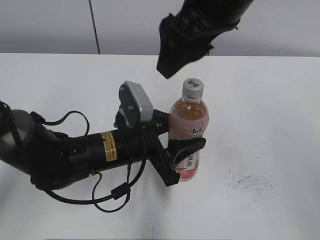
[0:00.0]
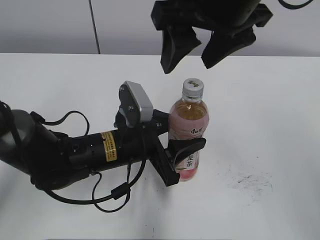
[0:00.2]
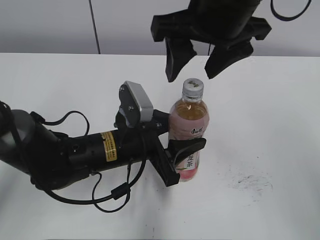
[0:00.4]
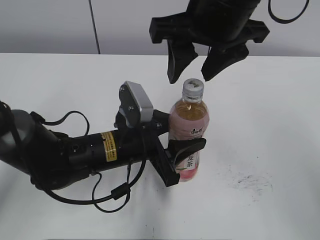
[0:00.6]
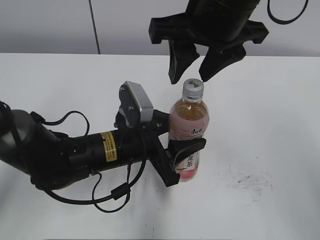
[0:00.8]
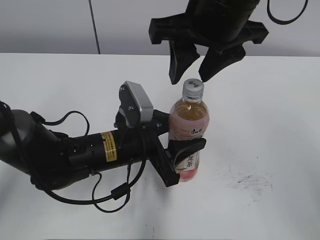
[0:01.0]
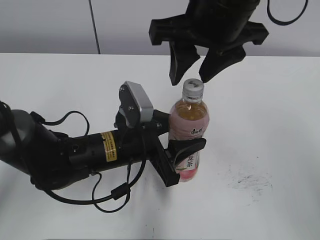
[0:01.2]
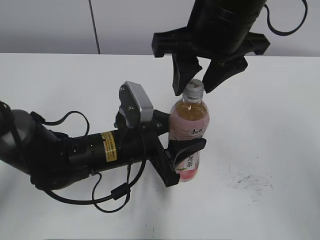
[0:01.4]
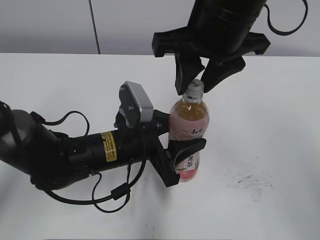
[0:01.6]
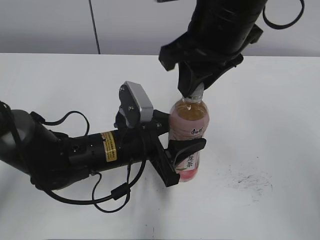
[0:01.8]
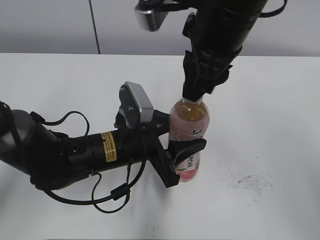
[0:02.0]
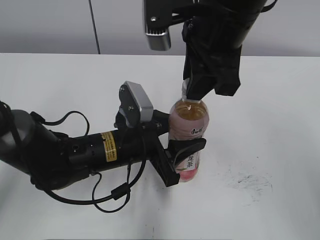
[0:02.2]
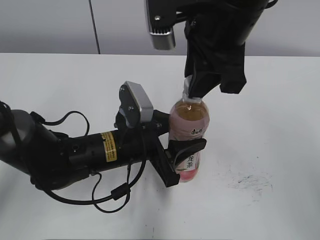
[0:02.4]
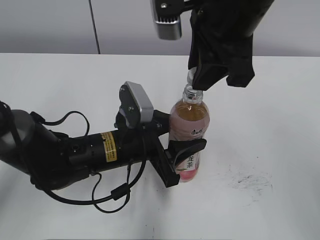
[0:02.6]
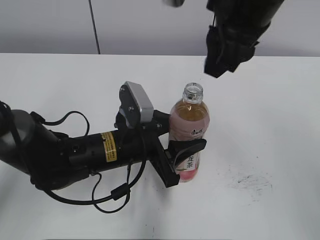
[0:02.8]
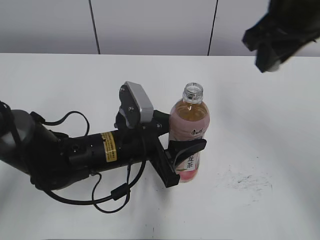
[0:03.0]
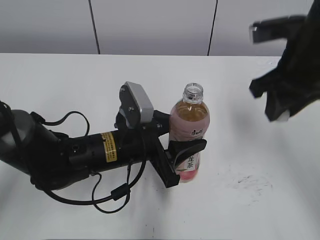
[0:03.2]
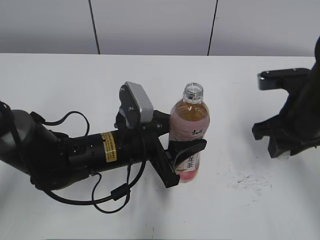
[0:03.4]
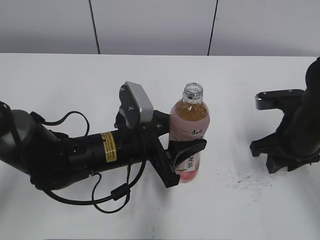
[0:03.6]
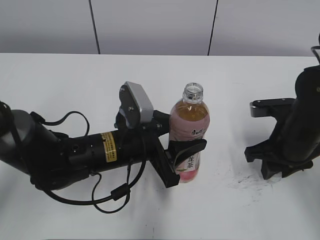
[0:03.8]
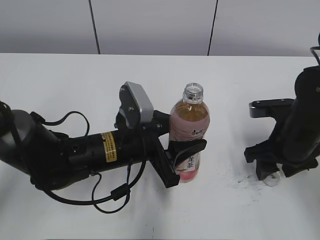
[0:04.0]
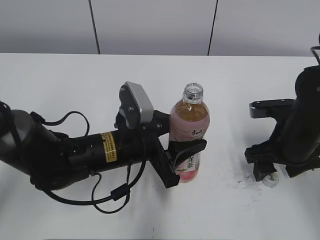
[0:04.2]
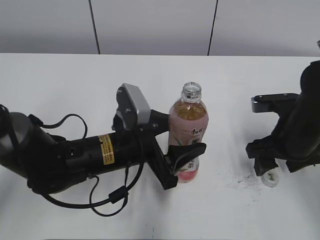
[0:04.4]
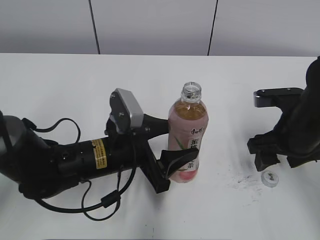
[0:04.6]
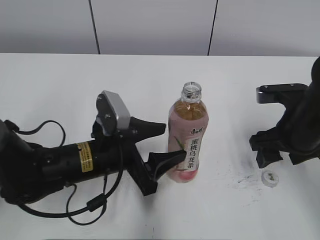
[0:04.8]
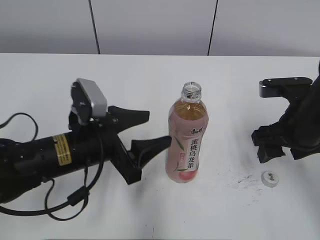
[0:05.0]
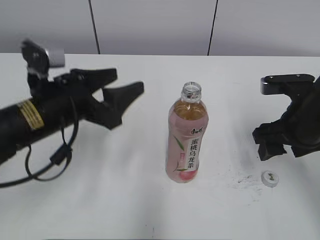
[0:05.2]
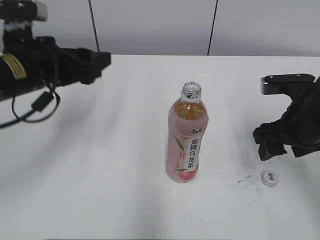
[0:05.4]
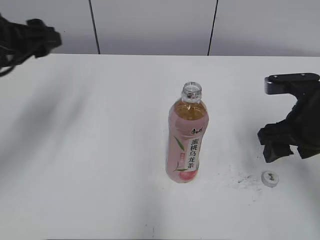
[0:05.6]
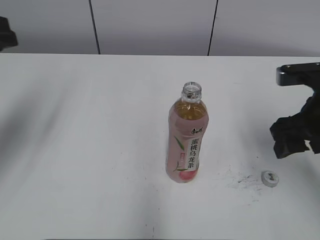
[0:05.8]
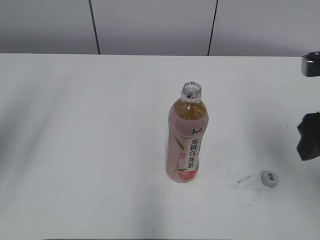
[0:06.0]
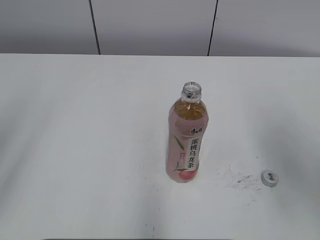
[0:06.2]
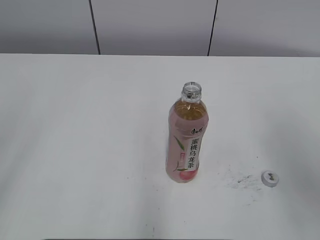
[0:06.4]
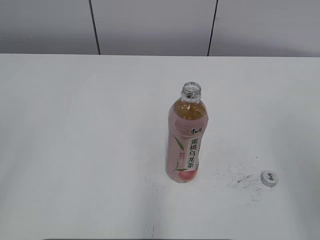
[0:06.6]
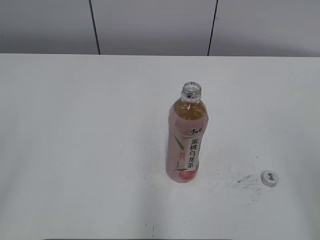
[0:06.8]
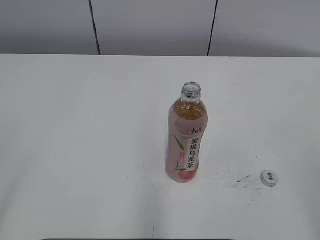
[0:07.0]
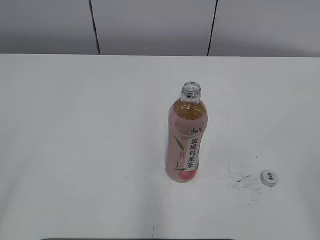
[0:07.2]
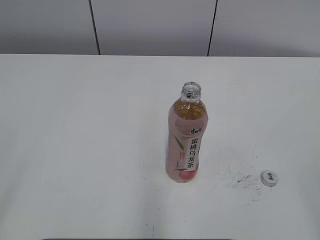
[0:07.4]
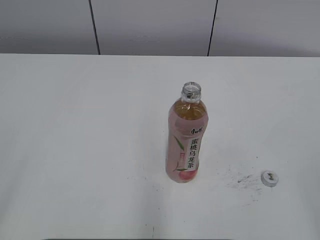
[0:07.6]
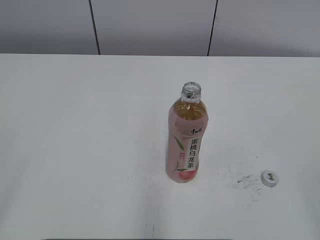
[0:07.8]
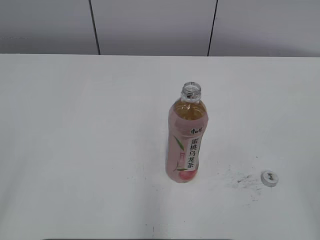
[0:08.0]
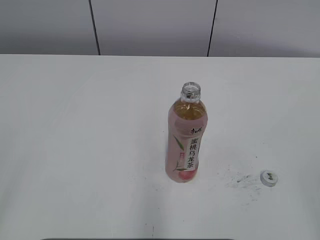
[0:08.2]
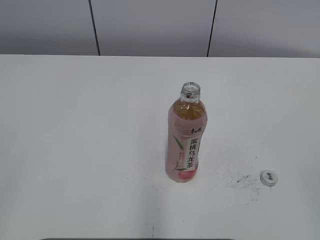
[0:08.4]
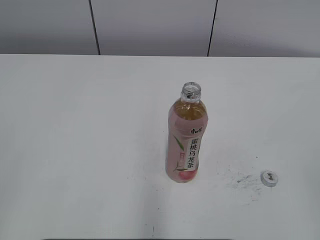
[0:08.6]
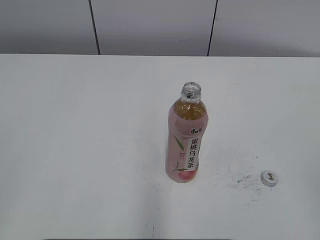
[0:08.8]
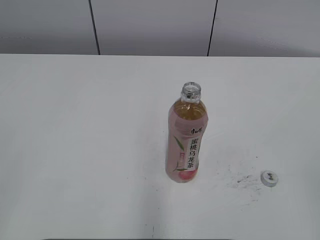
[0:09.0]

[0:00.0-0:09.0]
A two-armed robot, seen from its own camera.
Step, 0:02.8 to 0:04.4: Place the bottle cap on the right.
Step, 0:04.6 to 0:05.2: Place the Peach Oolong Tea with the left hand.
0:00.0 to 0:01.6: The right gripper closes.
0:01.6 to 0:03.0: The right gripper is displaced to the right by approximately 10 cm.
0:03.0 to 0:04.4: The right gripper moves downward, approximately 20 cm, and opens its fingers.
0:04.4 to 0:06.0: The left gripper is displaced to the left and upward by approximately 30 cm, while the right gripper goes some 10 cm upward.
0:06.0 to 0:07.6: The grippers both shift backward by approximately 20 cm.

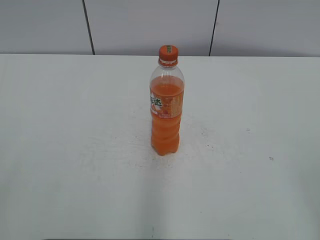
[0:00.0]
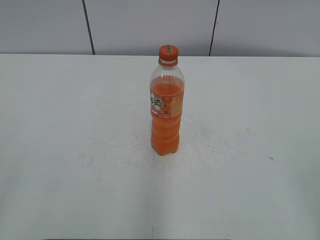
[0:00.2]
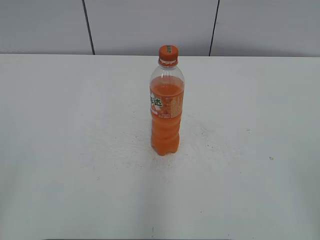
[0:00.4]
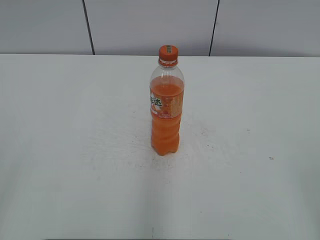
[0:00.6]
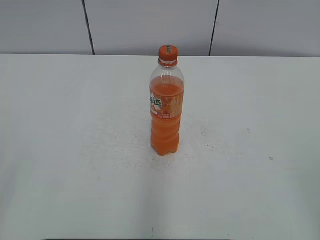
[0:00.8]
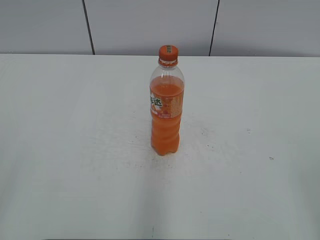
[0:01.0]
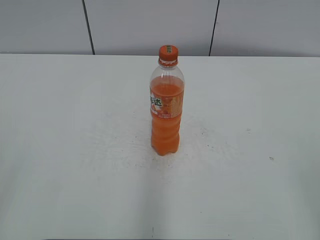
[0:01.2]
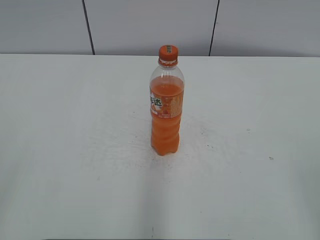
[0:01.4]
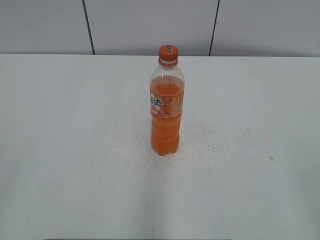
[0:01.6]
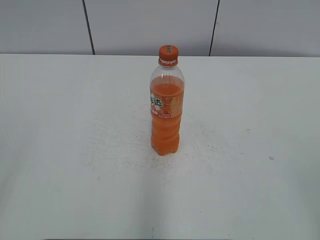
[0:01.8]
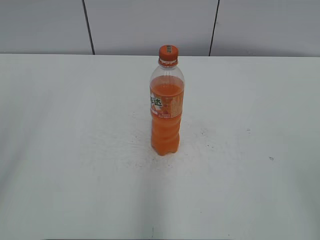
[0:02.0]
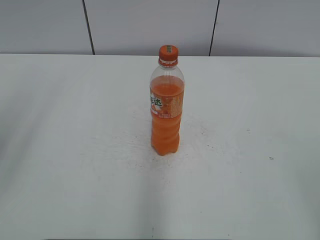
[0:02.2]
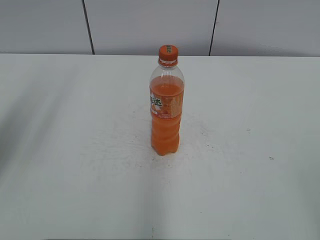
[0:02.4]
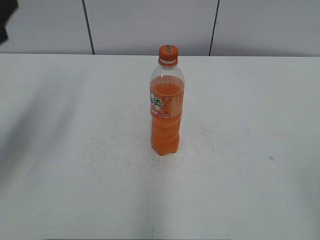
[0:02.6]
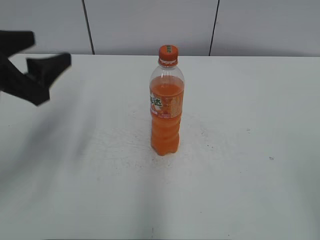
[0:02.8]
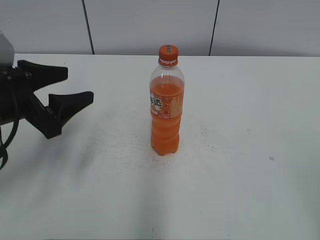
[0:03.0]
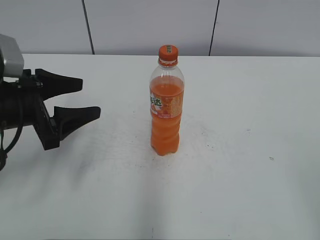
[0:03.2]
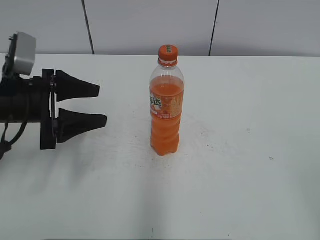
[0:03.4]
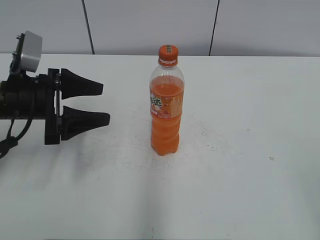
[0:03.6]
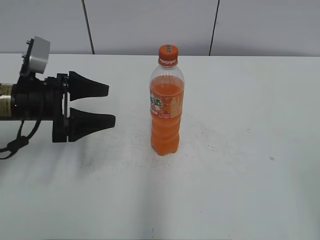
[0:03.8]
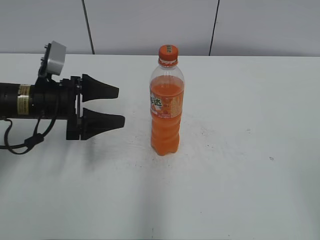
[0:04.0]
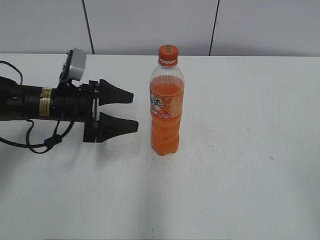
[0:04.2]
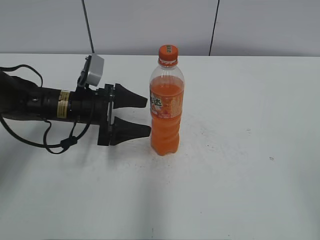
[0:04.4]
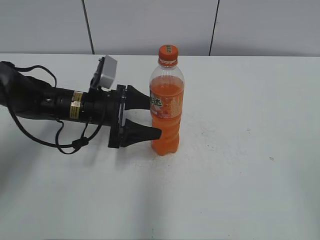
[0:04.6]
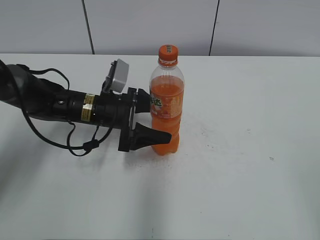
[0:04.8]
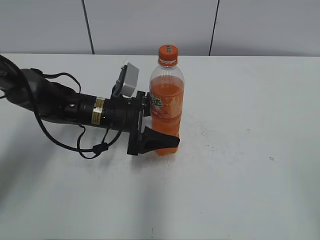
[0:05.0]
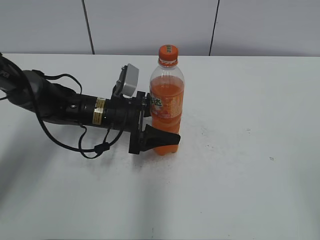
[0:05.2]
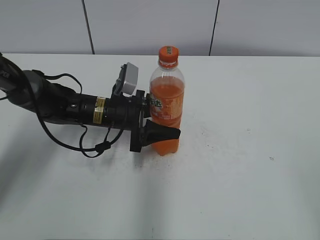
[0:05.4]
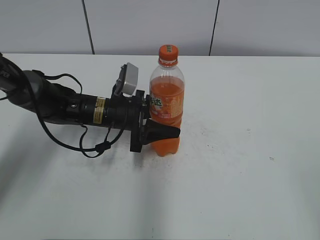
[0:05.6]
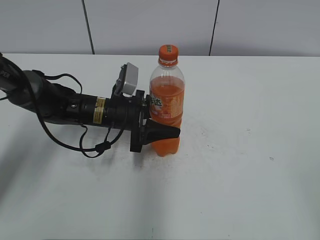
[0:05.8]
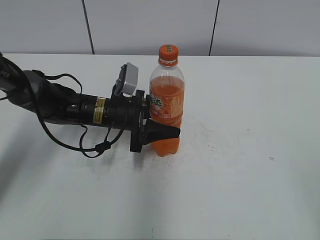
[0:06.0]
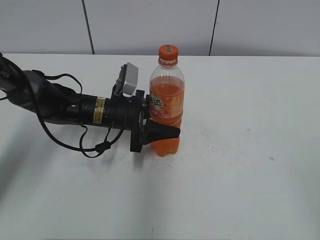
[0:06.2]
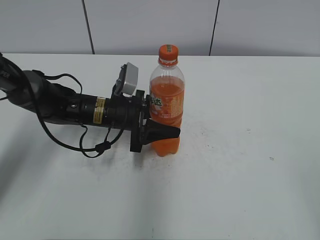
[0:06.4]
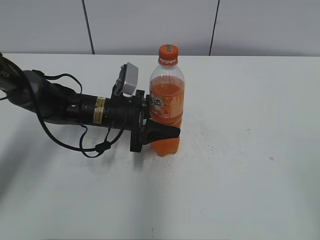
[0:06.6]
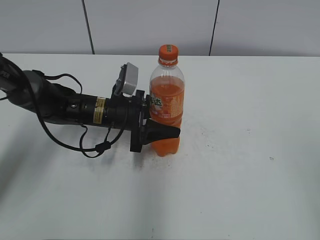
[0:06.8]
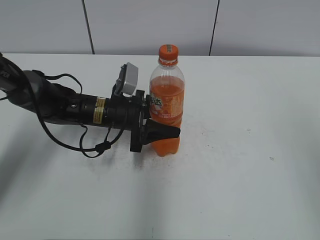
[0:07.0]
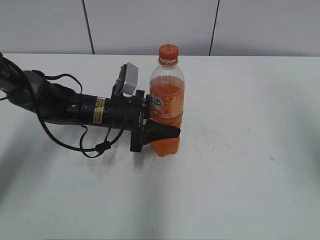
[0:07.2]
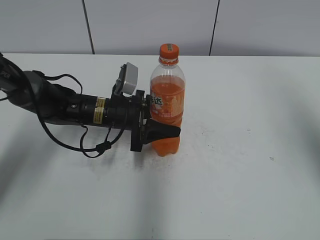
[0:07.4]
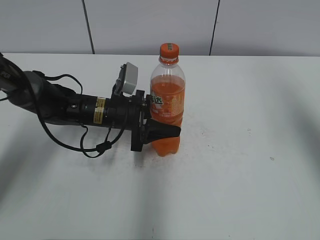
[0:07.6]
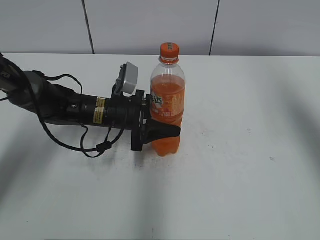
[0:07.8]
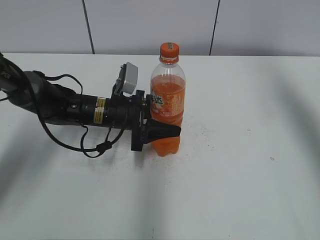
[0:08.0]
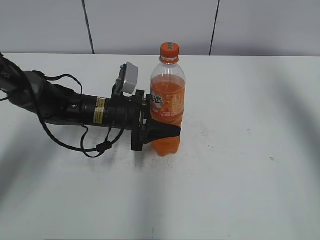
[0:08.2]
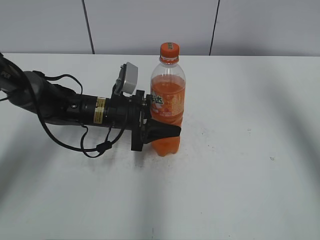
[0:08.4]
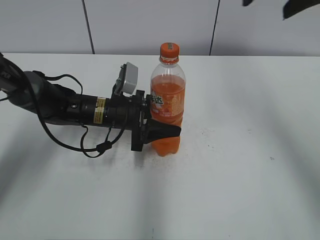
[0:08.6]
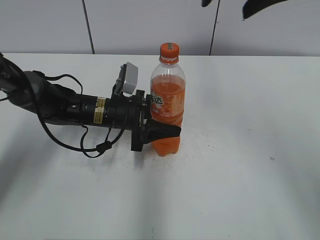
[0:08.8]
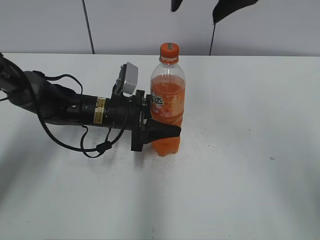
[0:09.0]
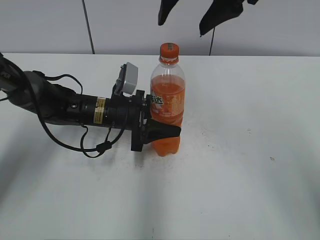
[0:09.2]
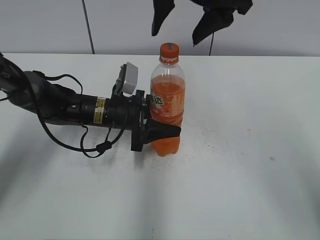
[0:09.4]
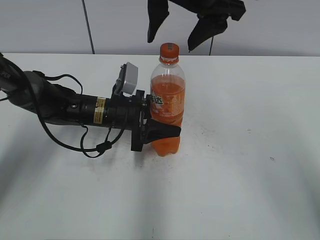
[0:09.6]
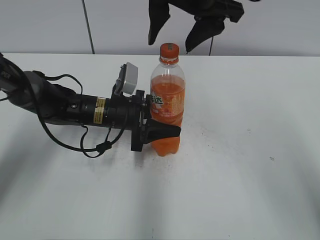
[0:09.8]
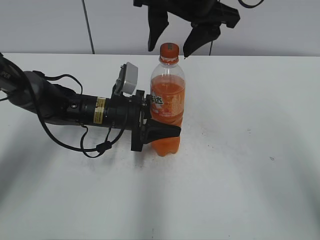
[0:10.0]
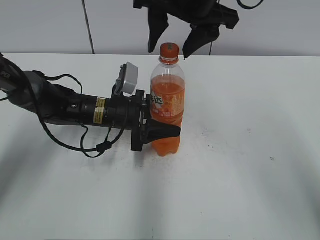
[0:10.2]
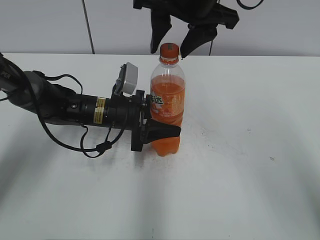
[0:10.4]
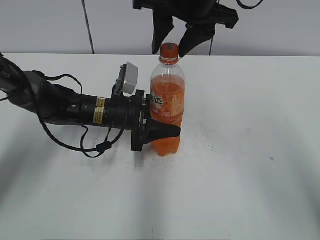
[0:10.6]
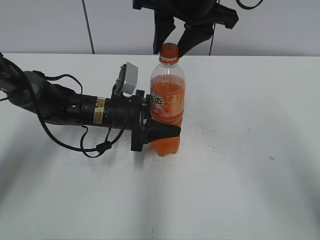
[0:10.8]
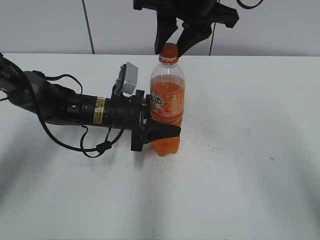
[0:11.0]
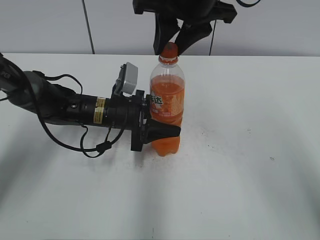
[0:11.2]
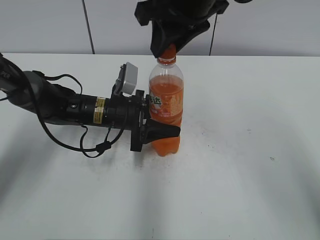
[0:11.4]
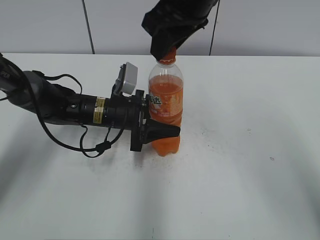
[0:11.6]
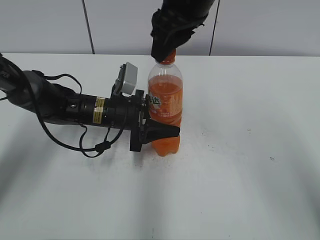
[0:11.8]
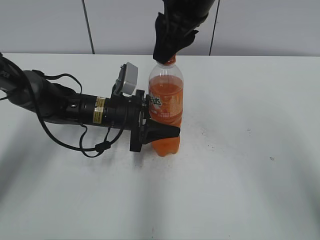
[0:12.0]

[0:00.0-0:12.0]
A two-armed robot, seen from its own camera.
Step, 0:00.0 to 0:05.6: Grab the Mirinda with the left hand.
0:01.6 to 0:03.0: The left gripper goes approximately 25 cm forward.
0:03.0 to 0:04.4: The left gripper shifts about 15 cm forward, downward and to the right, and opens its fingers.
0:04.4 to 0:06.0: The left gripper goes approximately 5 cm to the right, and closes.
0:06.0 to 0:07.6: The right gripper is displaced forward and upward by about 25 cm.
0:07.6 to 0:09.0: The right gripper goes about 20 cm to the left and forward.
0:09.0 to 0:10.4: The right gripper goes about 10 cm to the left and downward.
0:10.4 to 0:12.0: The right gripper closes its fingers.

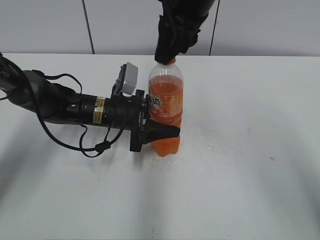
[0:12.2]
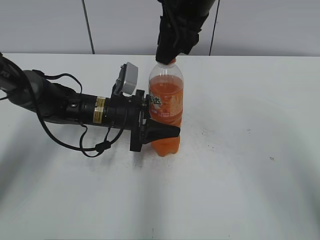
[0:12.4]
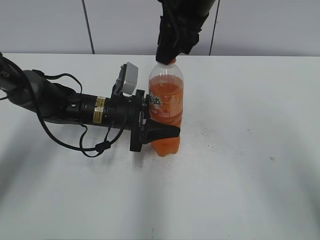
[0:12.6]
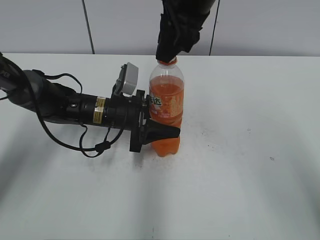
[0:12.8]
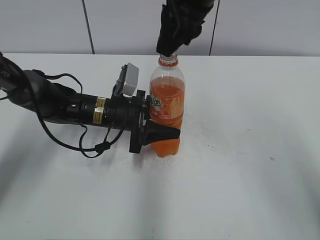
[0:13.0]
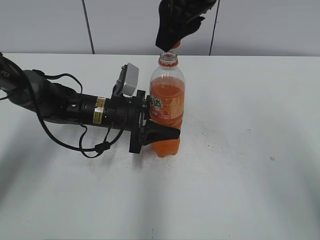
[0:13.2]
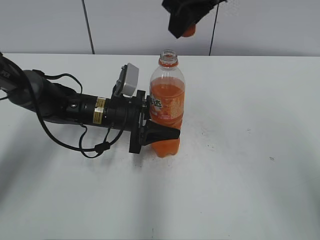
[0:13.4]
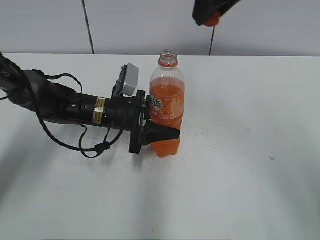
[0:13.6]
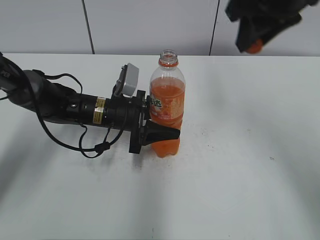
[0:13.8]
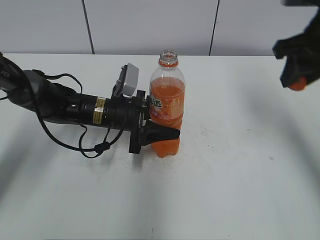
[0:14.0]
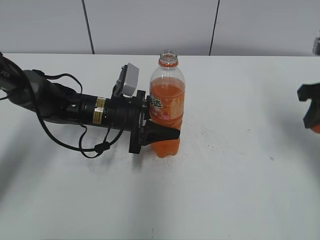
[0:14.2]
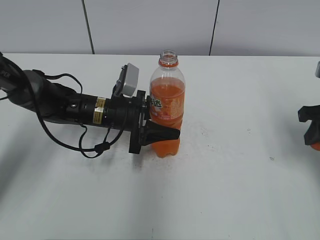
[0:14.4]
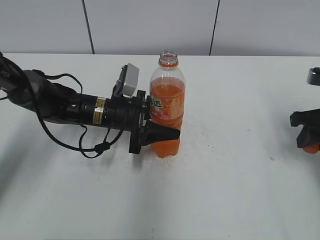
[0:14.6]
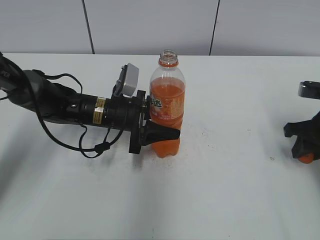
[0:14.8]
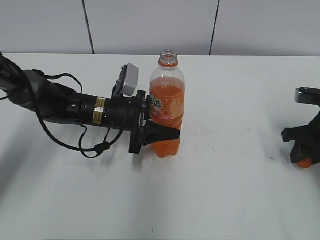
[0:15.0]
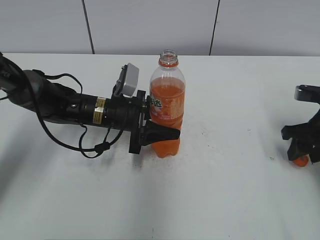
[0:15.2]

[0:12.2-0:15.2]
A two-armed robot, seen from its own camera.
0:12.2 to 0:13.8: The right gripper shifts roughly 10 cm to the right.
0:13.8 to 0:15.2: The right gripper travels downward and to the right by approximately 30 cm.
